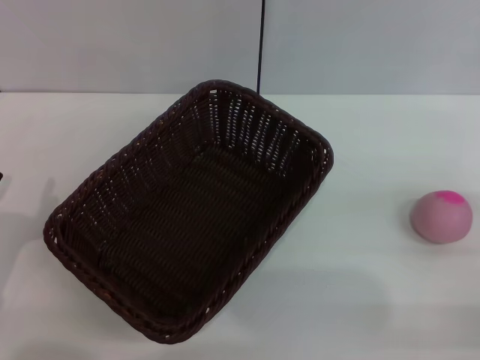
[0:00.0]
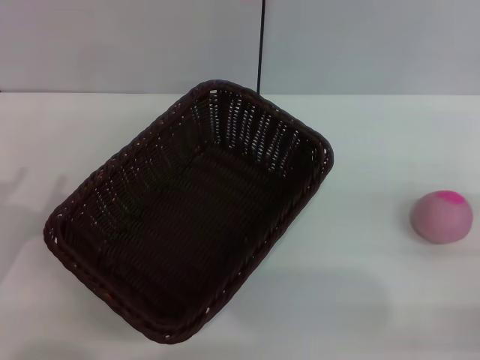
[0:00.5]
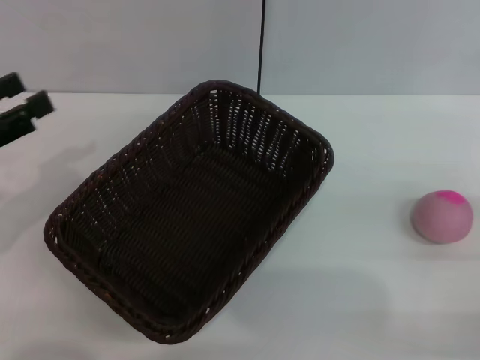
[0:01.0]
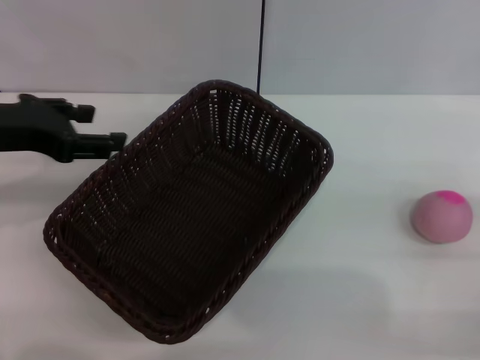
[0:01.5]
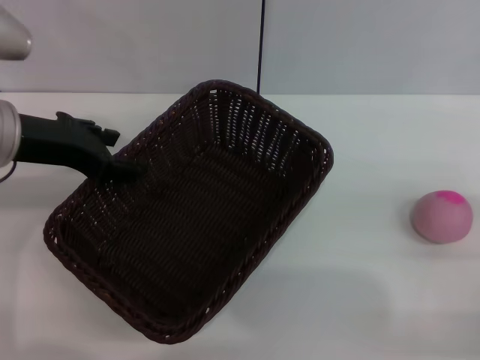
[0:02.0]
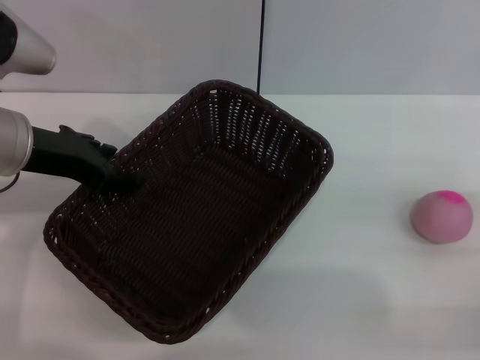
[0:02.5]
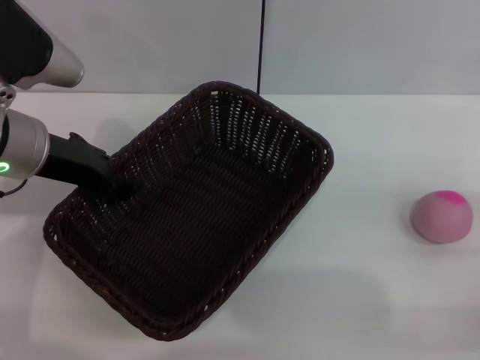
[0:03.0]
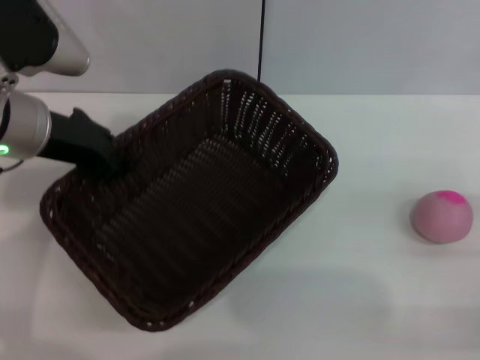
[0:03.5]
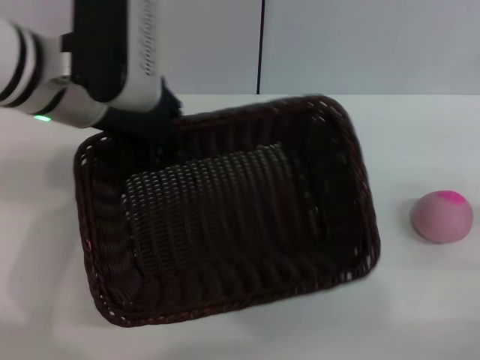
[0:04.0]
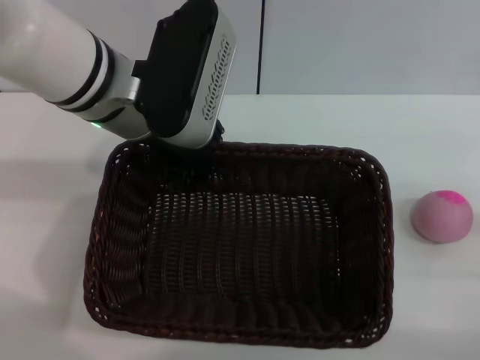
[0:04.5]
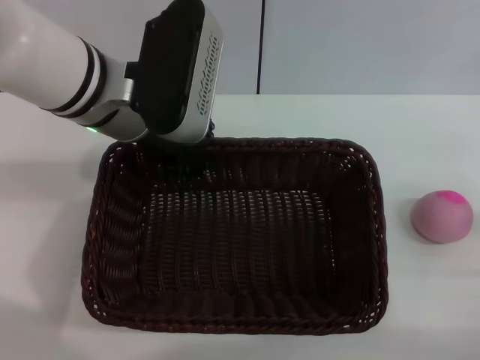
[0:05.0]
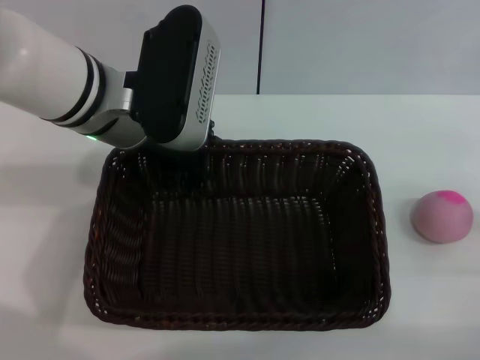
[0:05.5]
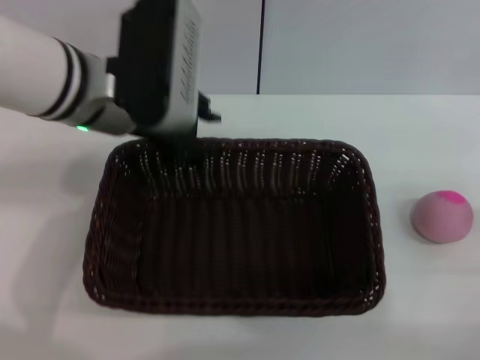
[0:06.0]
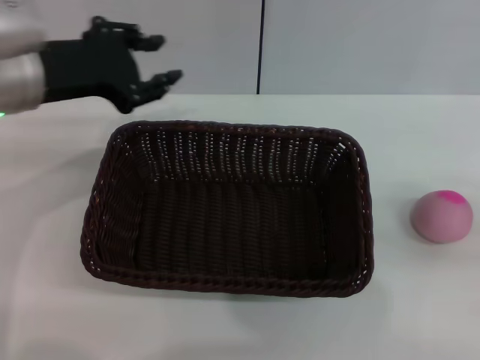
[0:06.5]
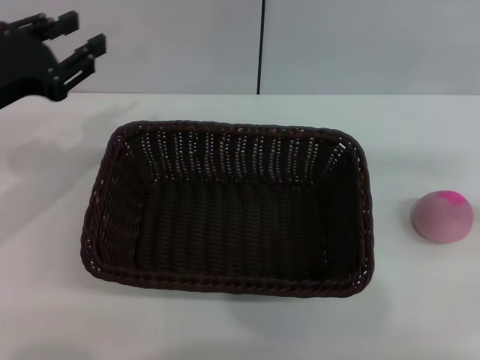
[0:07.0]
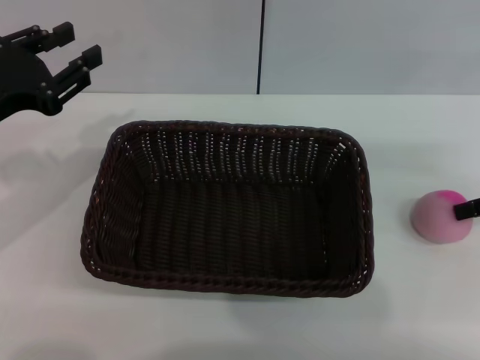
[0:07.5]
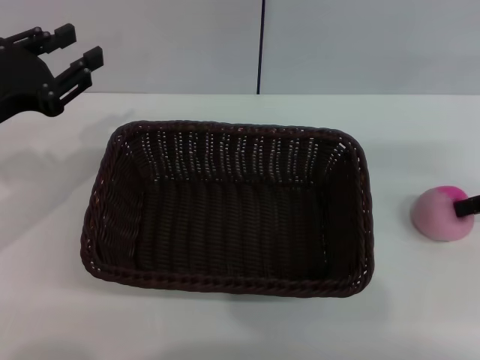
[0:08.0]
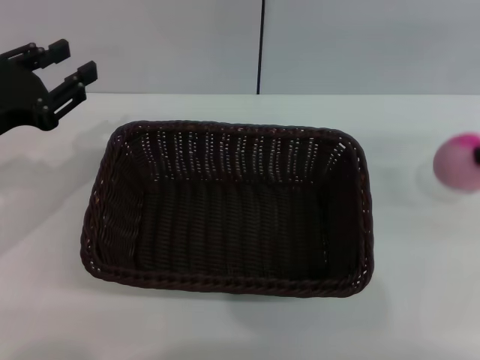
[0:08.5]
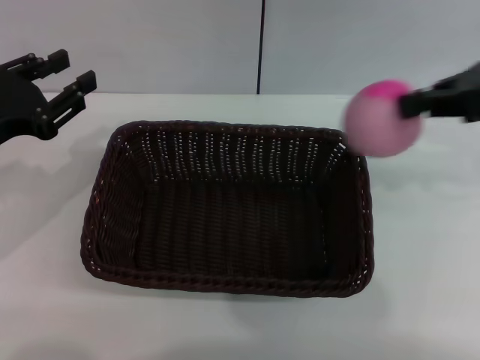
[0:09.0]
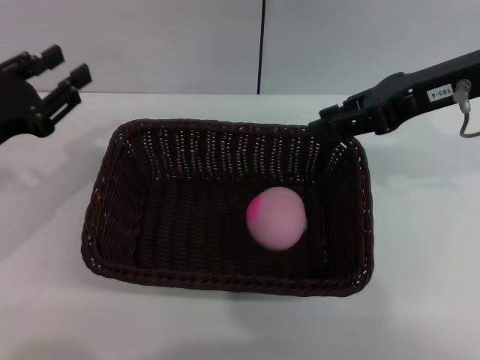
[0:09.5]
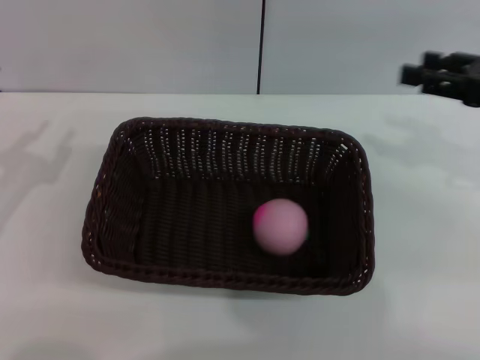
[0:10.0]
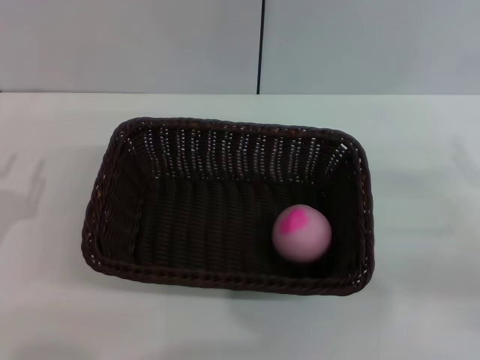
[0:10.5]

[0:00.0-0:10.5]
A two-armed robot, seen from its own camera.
Step, 0:00.0 to 0:03.5: Pick up the dark basket with the left gripper.
Step, 0:04.0 to 0:06.0: Place the dark basket in the center of view with the right gripper.
Step, 0:06.5 to 0:08.5: Pick up the peach with the left gripper.
Step, 0:09.0 to 0:09.5: Place the peach into the basket with the left gripper.
0:00.0 to 0:02.0: The left gripper is displaced upward, forward and to the right by some 25 cm.
0:02.0 to 0:04.0: The left gripper shifts some 10 cm to the right, and closes up.
0:04.0 to 0:06.5: The left gripper heads to the left, covering roughly 5 cm, and opens up, while the right gripper moves upward and to the right, approximately 10 cm.
0:06.5 to 0:08.5: The left gripper is displaced to the left, backward and downward by roughly 10 cm. The right gripper heads forward, to the left and upward, covering approximately 15 cm, and closes its fingers.
0:08.5 to 0:10.5: The two grippers go some 15 cm downward and backward. The right gripper opens.

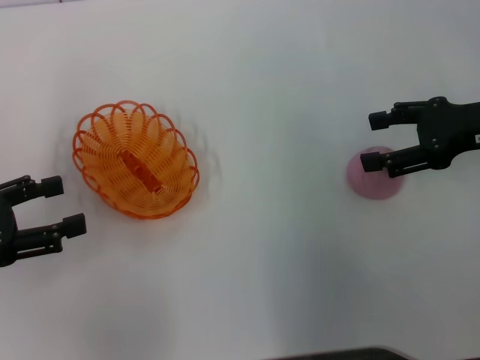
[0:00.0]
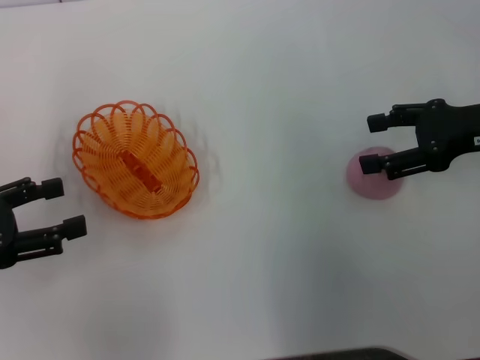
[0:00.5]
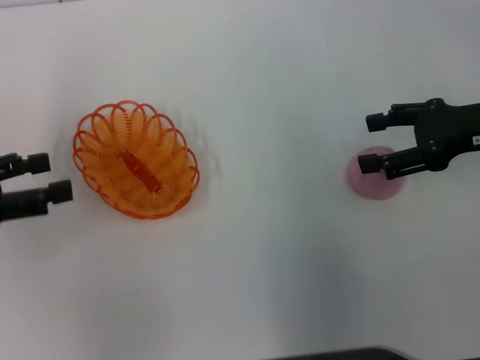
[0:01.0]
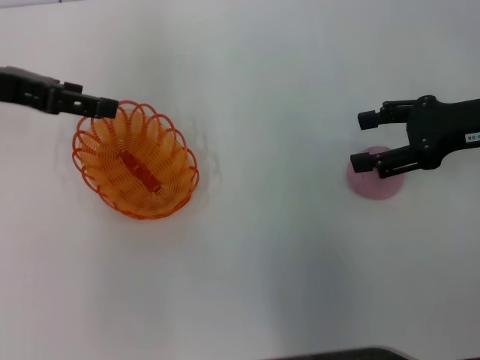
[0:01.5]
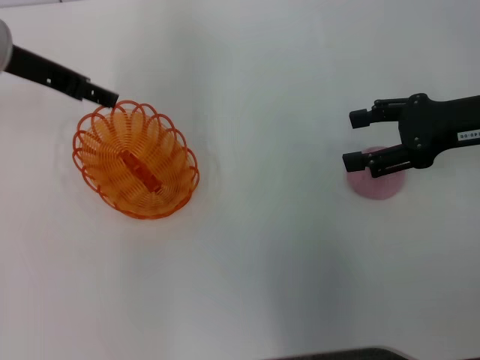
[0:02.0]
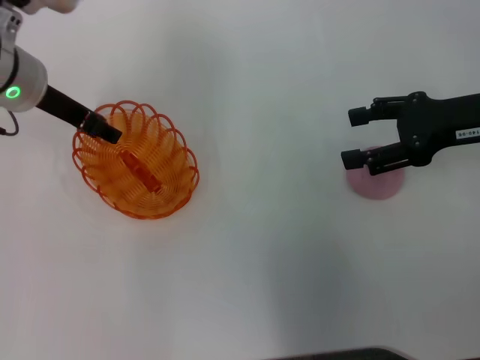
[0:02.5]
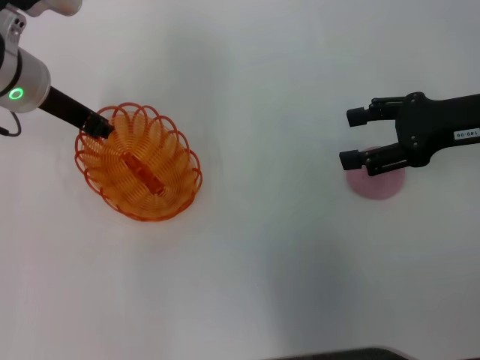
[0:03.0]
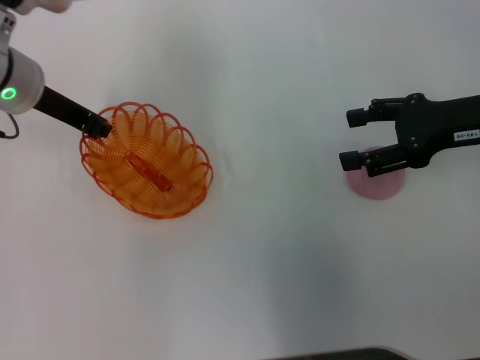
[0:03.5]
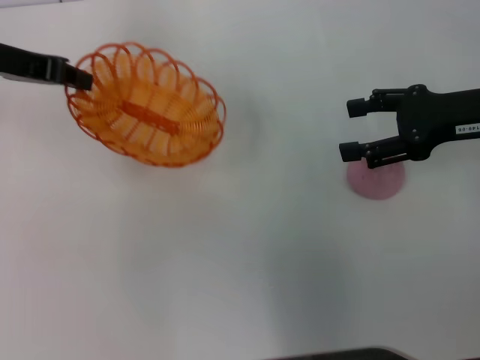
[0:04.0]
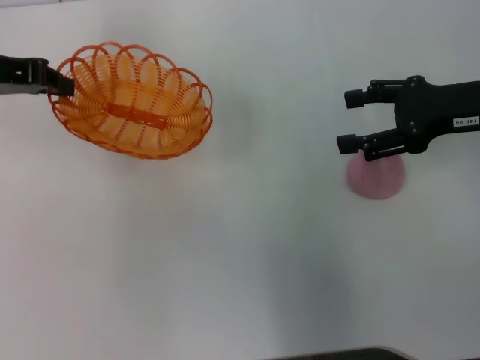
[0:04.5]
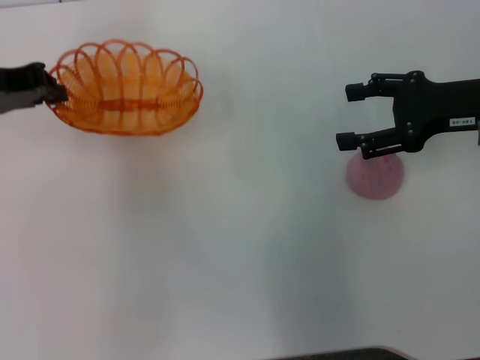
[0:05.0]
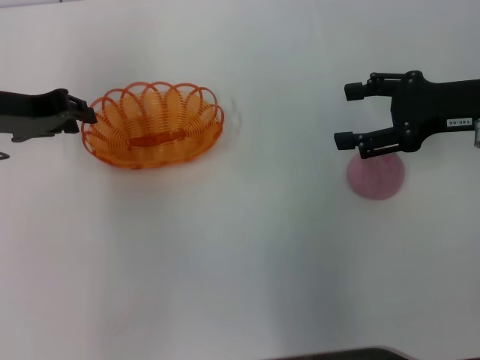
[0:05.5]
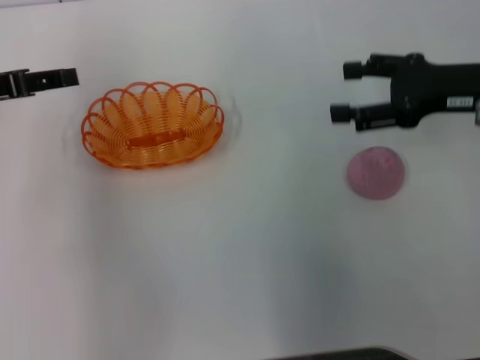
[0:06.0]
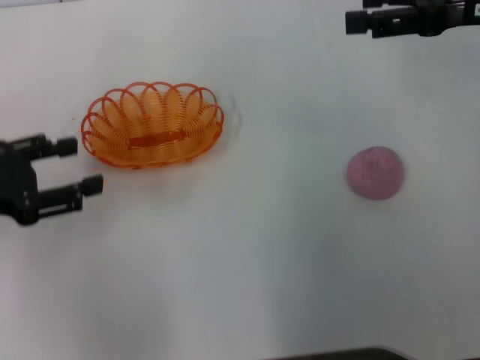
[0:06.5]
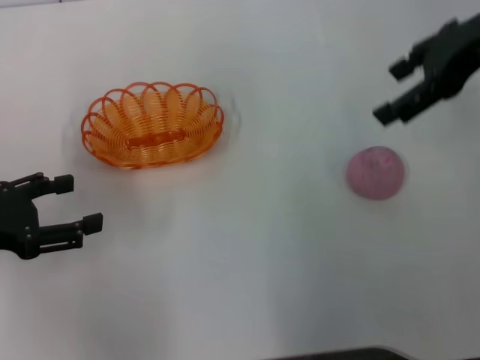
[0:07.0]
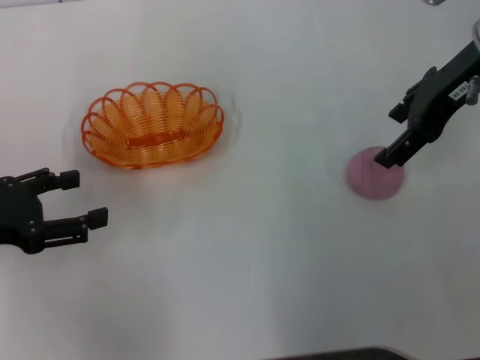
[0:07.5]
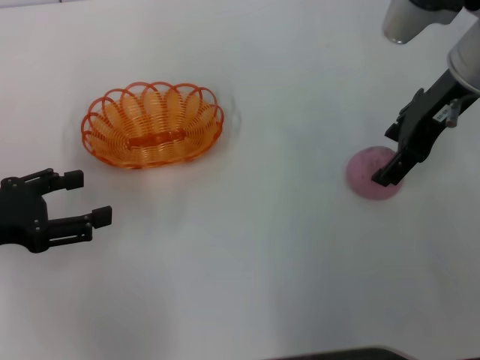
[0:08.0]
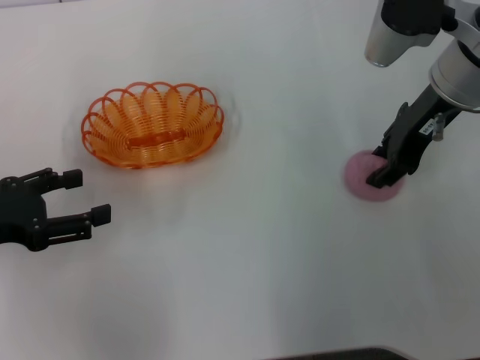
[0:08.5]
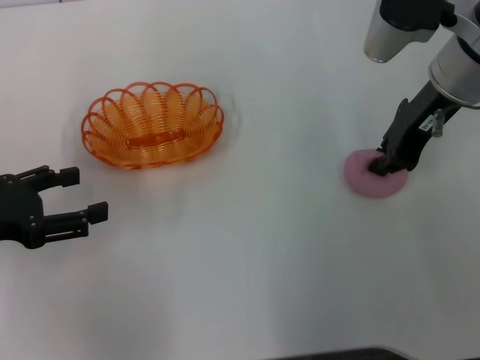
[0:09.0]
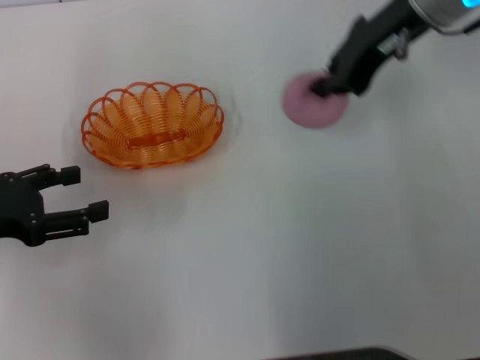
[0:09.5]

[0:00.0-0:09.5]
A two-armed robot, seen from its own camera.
Step, 0:00.0 to 0:03.5: Pick up the basket with the left gripper.
Step, 0:04.0 to 0:05.5: Place the basket in the center of view with the left gripper.
Step, 0:06.0 to 0:09.0: Pick up the peach with the right gripper.
0:00.0 to 0:02.0: The left gripper shifts roughly 20 cm forward, to the right and upward.
0:02.0 to 0:04.0: The left gripper closes its fingers.
0:04.0 to 0:05.5: The left gripper goes about 5 cm downward.
0:05.5 to 0:07.5: The right gripper is displaced upward and to the left by about 10 cm; the left gripper is displaced backward and to the left by roughly 15 cm, and opens up.
0:07.5 to 0:09.5: The right gripper goes about 5 cm to the left, and closes up.

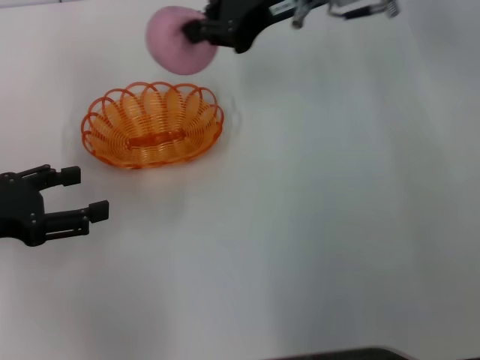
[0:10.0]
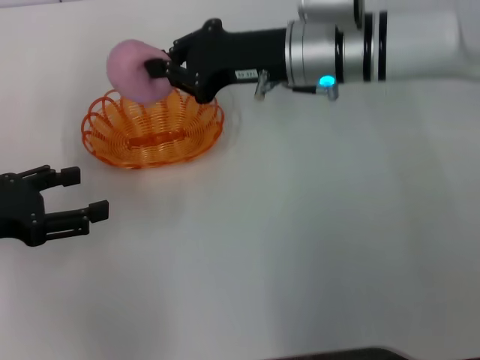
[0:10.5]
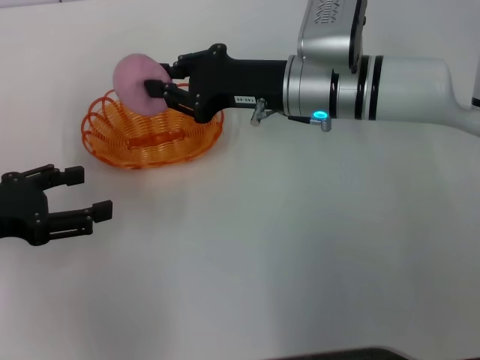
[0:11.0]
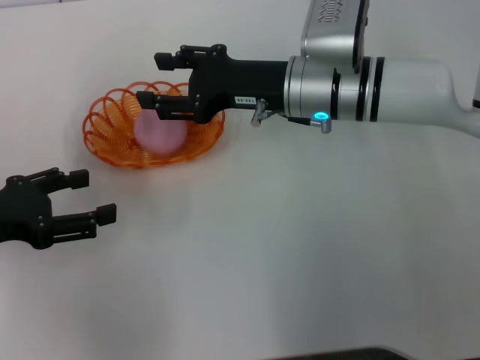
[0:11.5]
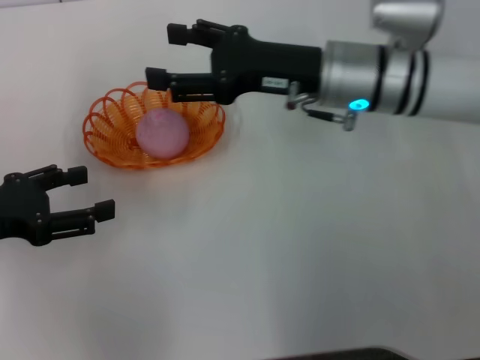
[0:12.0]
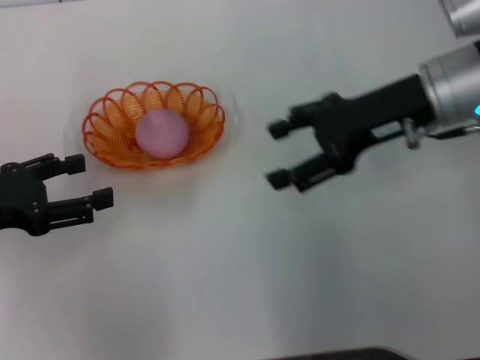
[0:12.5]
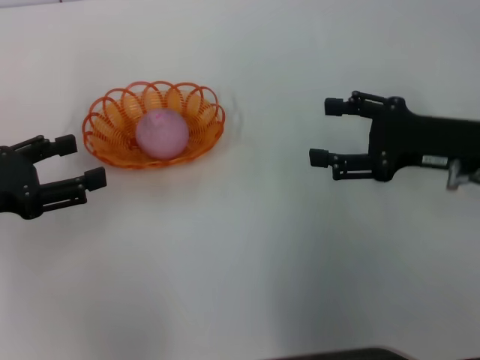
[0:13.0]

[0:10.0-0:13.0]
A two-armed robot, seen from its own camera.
Step, 0:10.0 to 0:11.0: Place the peach into the basket with the right gripper.
0:10.0 to 0:11.5: The right gripper goes approximately 10 cm downward, and opens.
0:11.5 to 0:13.0: The right gripper travels to the right and backward by about 20 cm, and opens up.

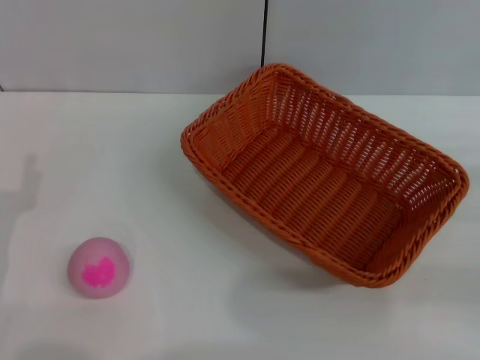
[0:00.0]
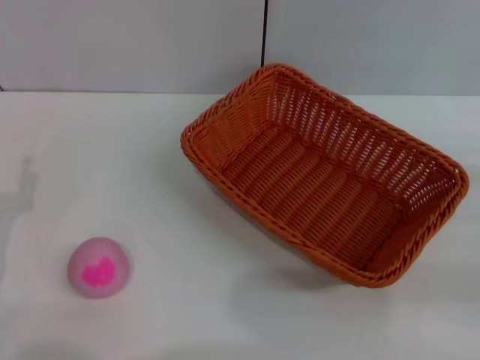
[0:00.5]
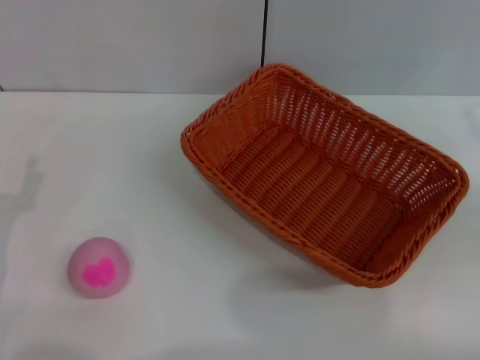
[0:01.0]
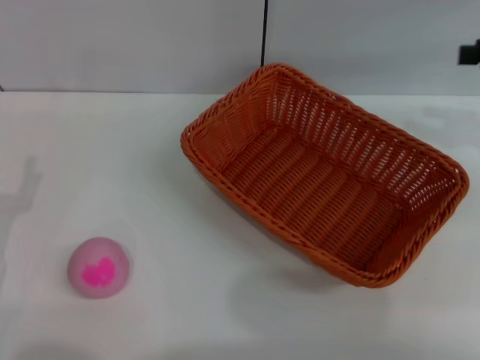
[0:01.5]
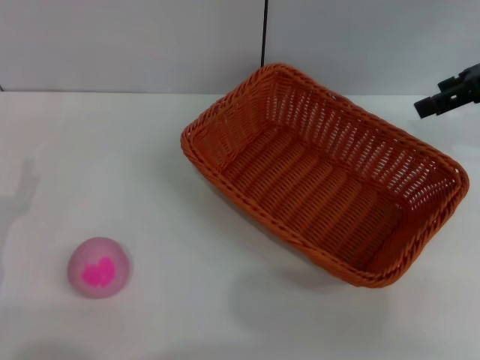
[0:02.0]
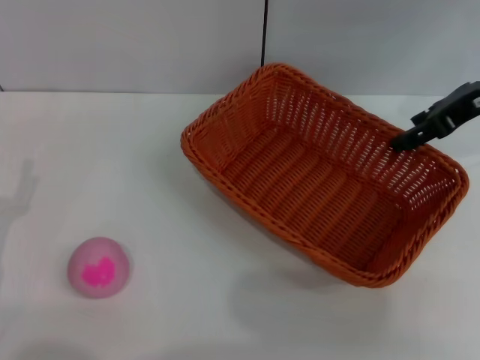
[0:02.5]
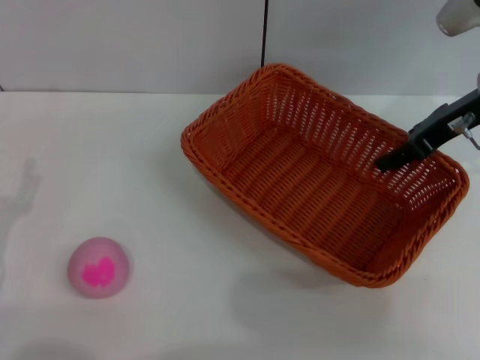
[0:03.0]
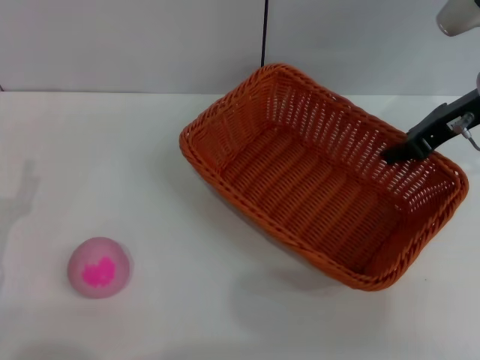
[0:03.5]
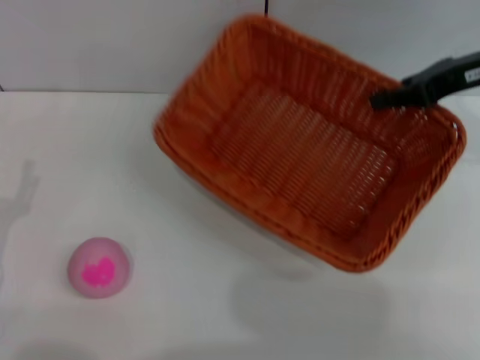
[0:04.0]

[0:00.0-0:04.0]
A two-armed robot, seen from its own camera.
Step, 0:00.0 to 0:03.5: Pick up the light basket with the right gripper.
0:00.0 to 0:02.0: The right gripper shifts approximately 25 cm upward, forward and to the left, and opens its fingers.
0:02.0 to 0:04.0: The right gripper closes its fingers.
